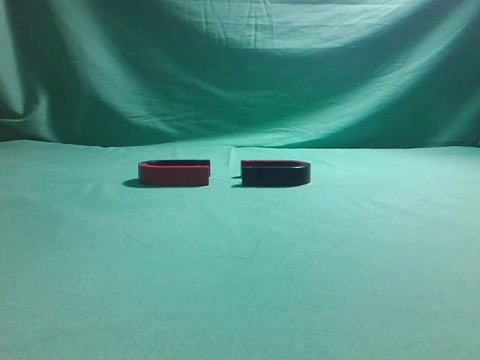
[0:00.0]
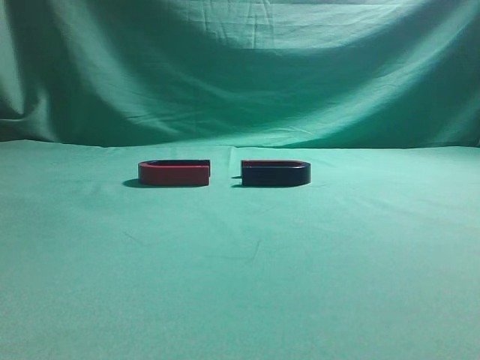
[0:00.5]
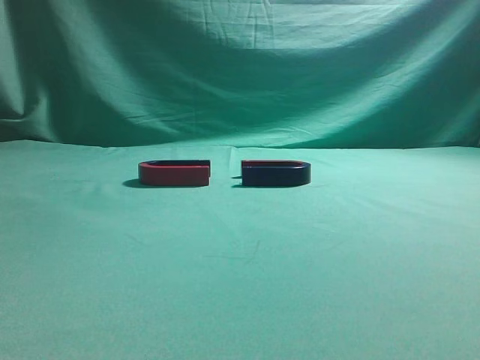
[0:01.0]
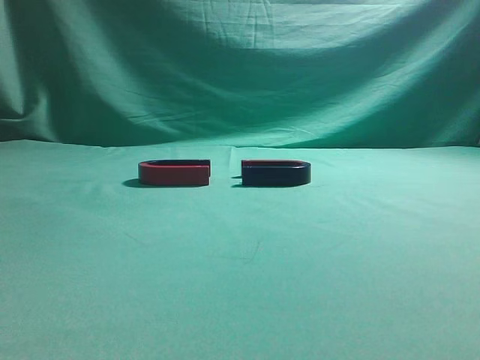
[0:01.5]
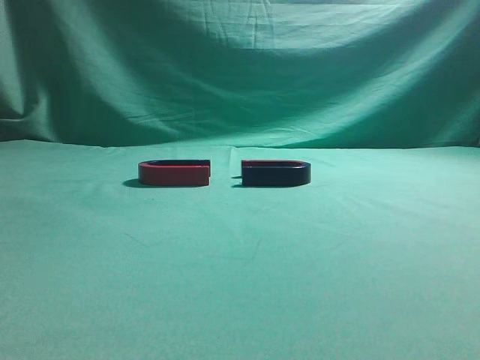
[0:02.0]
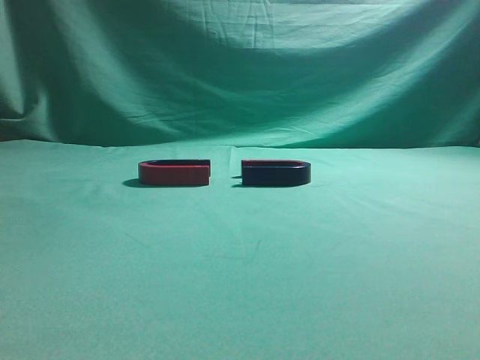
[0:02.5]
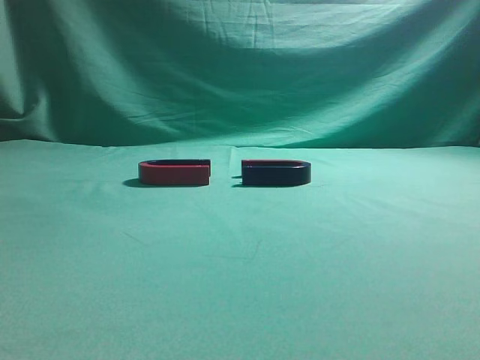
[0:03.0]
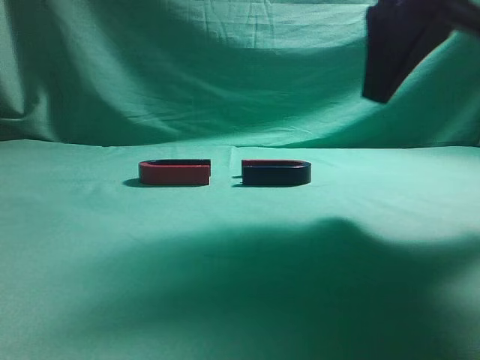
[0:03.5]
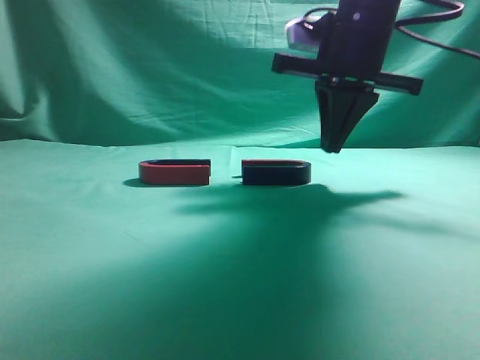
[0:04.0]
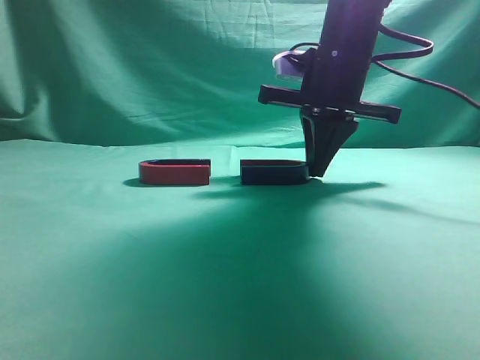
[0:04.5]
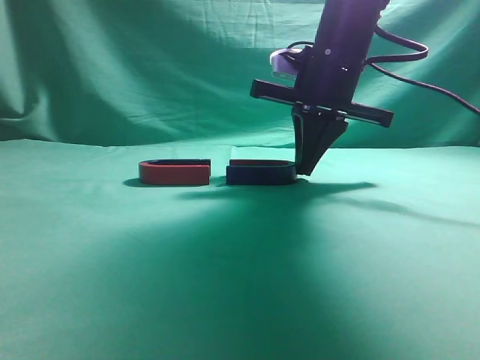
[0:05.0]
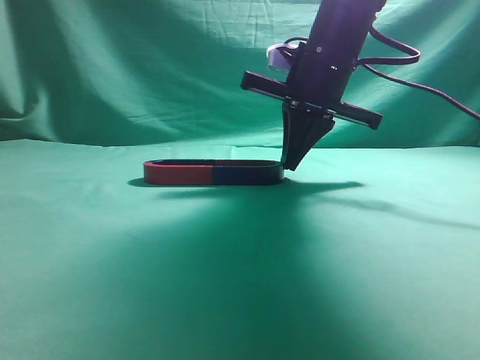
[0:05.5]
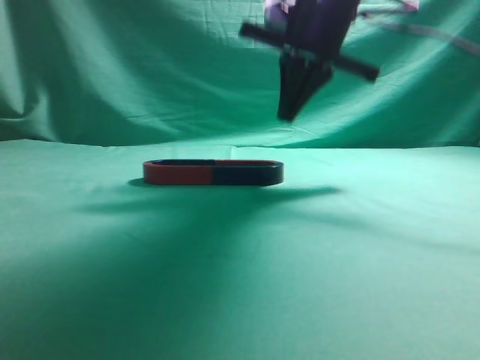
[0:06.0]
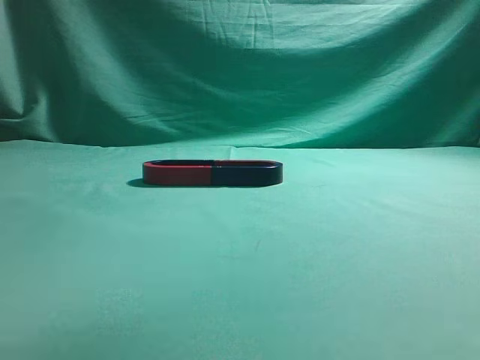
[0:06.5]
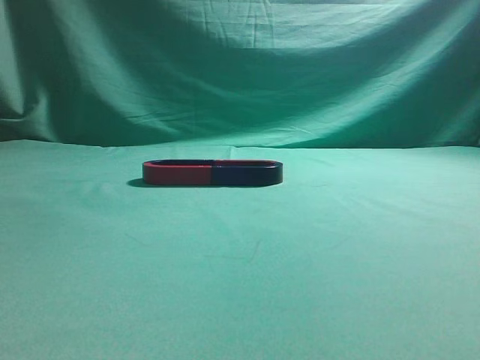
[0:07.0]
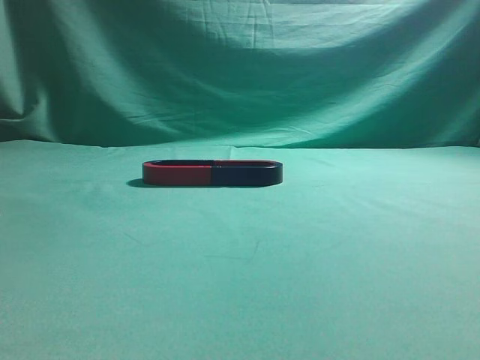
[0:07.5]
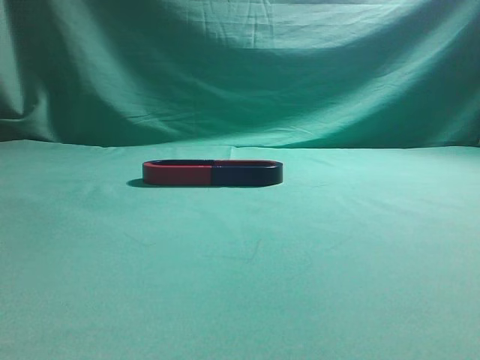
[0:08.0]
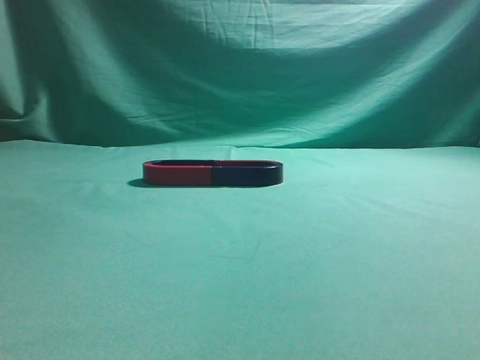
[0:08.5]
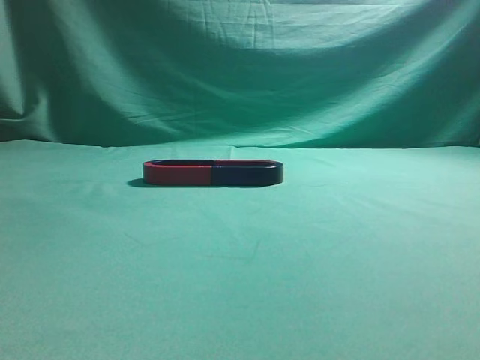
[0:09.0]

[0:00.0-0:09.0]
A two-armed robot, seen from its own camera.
Task of the whole recording: push the magnet on the table from its original position to another position.
Step, 0:00.0 to 0:05.5: Push the magnet on the right to connect the magnet on the left.
0:02.0 to 0:04.5: The right gripper is displaced forward and to the left by approximately 40 cm.
0:04.5 to 0:07.0: The right gripper moves upward, backward and to the right, some 35 cm.
